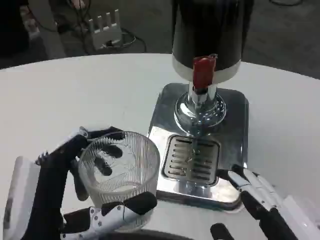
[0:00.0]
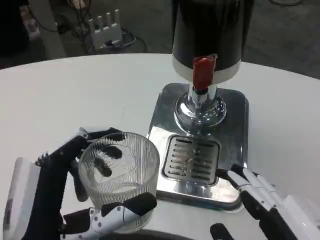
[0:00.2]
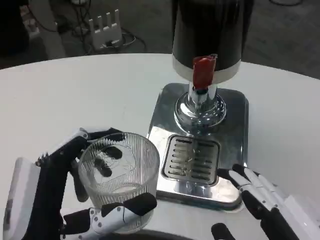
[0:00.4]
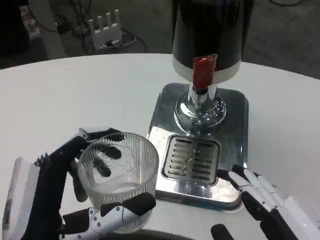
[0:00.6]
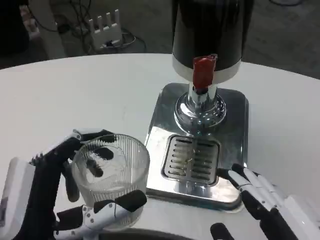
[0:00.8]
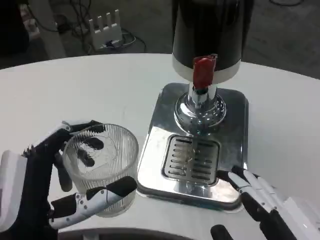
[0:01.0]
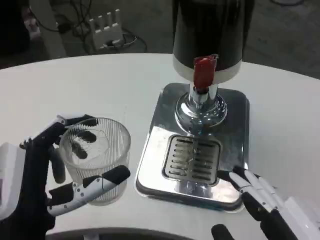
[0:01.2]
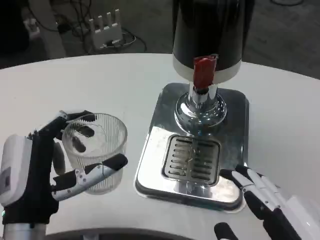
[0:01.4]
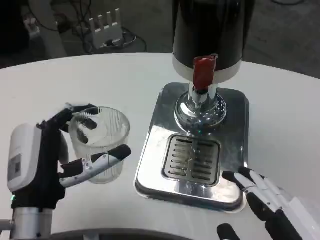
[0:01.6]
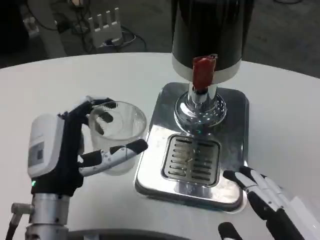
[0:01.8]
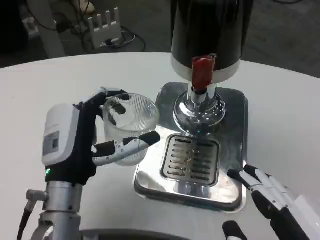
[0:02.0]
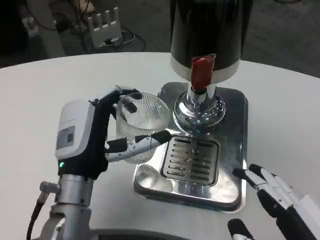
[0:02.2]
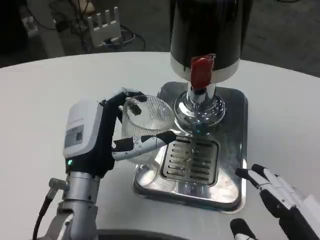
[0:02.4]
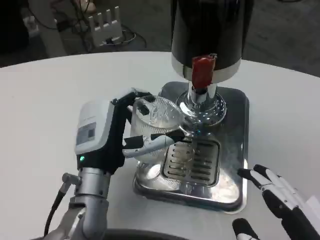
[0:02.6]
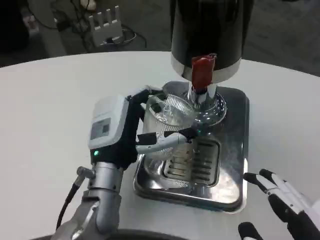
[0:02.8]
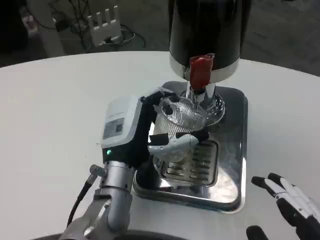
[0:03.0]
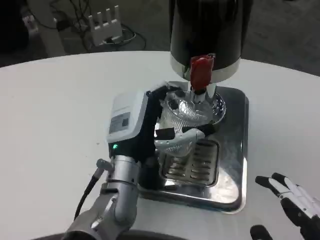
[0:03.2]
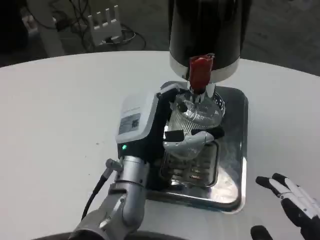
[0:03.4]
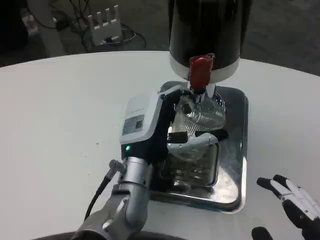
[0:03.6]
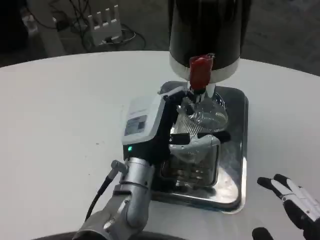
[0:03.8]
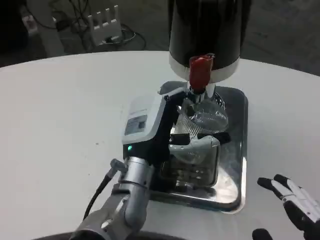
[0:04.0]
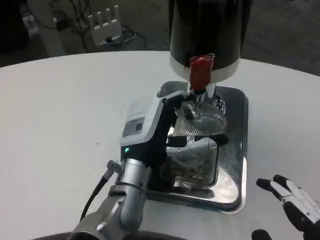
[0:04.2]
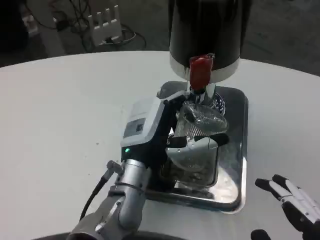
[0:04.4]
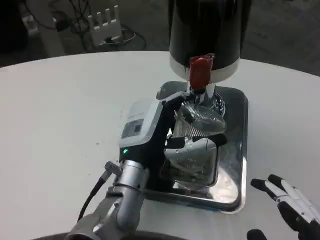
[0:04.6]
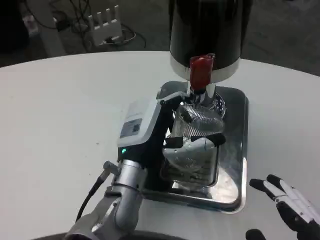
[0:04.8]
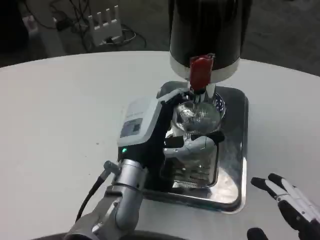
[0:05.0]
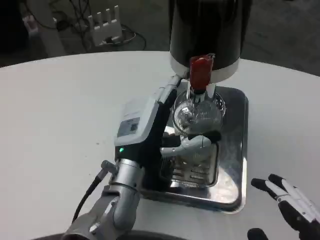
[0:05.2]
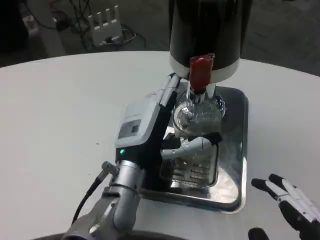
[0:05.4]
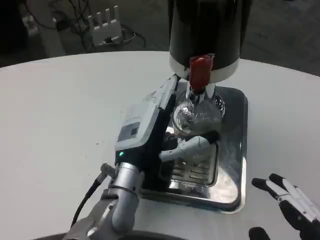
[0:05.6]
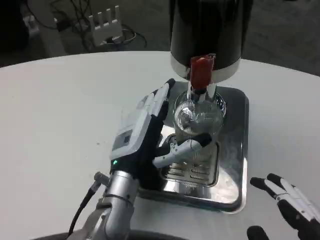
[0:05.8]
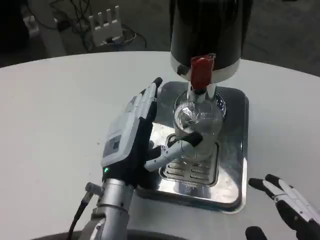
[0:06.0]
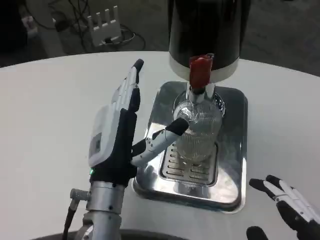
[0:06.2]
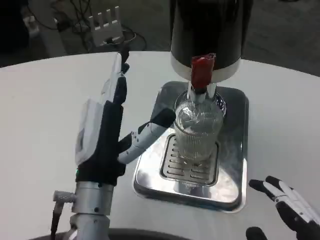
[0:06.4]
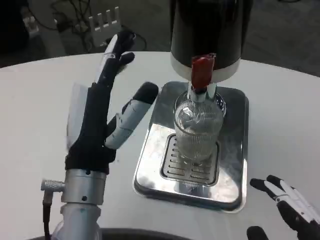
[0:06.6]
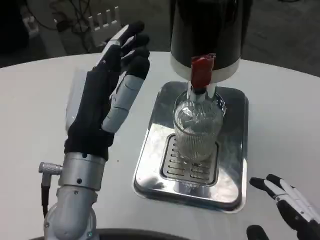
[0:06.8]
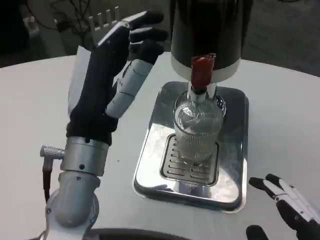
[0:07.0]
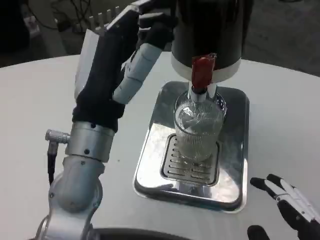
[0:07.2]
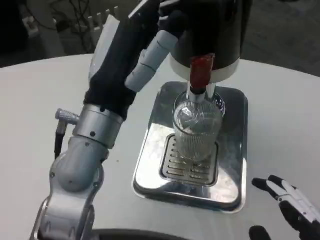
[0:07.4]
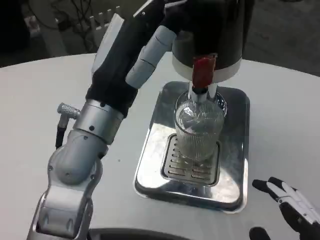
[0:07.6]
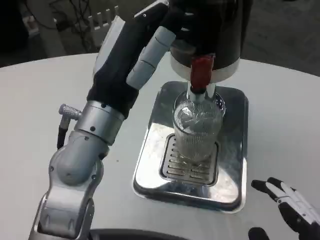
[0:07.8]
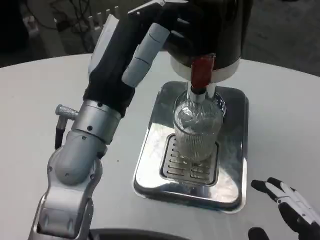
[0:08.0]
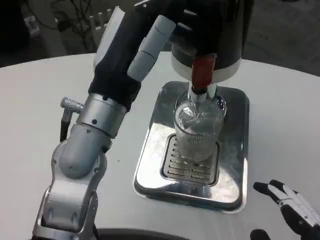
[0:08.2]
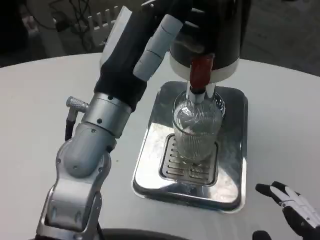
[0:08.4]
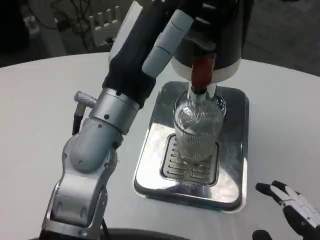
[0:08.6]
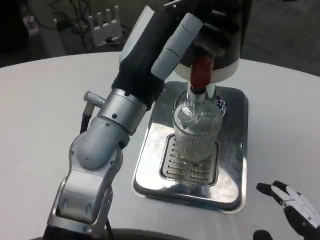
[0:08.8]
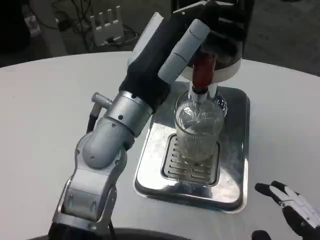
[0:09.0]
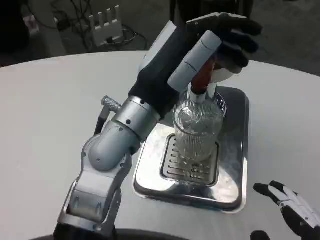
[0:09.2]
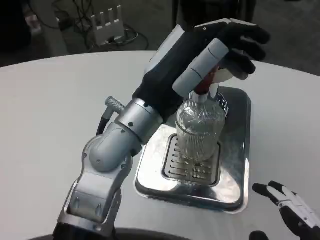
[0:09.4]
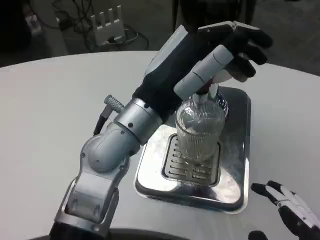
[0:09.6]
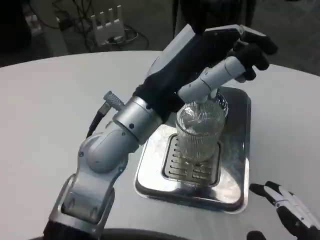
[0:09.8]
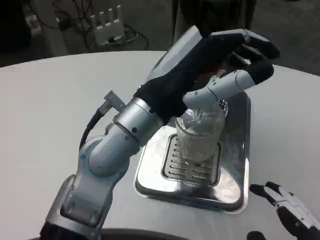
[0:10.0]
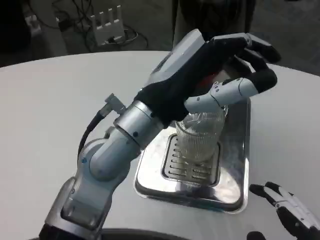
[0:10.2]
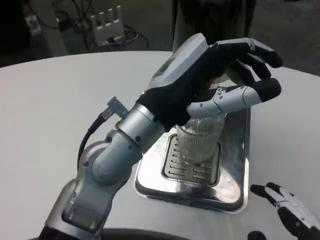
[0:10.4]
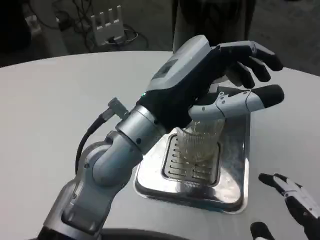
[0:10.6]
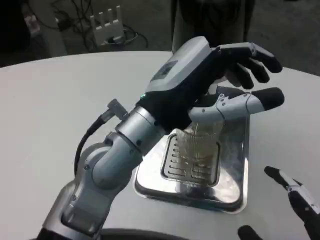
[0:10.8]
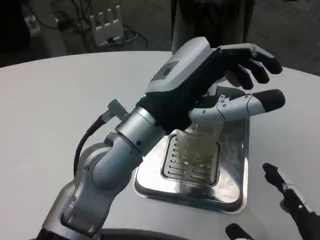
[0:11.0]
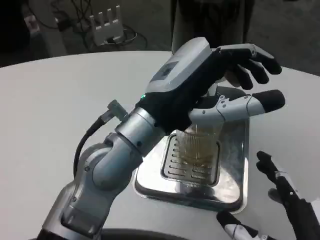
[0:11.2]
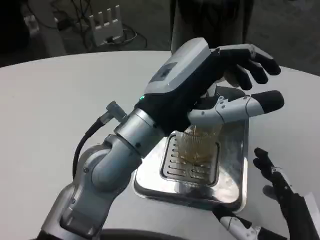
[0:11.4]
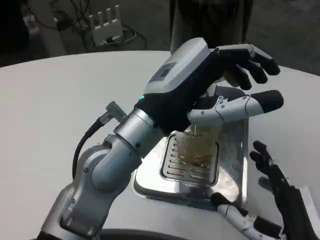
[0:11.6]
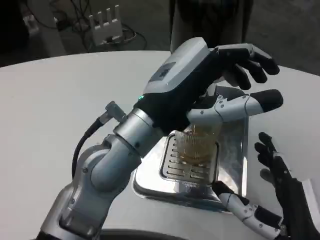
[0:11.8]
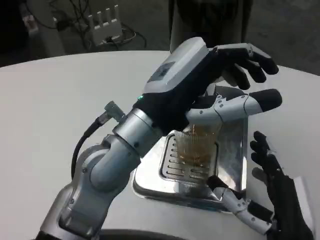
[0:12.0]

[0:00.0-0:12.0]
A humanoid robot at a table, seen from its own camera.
Task of the whole recording: Grasp the cup under the faucet to collect the drink, then remove the cup.
0:00.0 to 0:01.6: The left hand shifts about 10 cm forward.
0:01.6 to 0:03.0: The left hand travels to the right and forward by some 10 cm.
0:03.0 to 0:06.0: The hands stay close to where they were, moving slightly.
0:06.0 to 0:07.6: The left hand heads upward, covering some 15 cm.
0:10.4 to 0:12.0: The right hand moves forward and downward, approximately 15 cm.

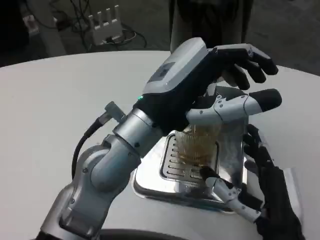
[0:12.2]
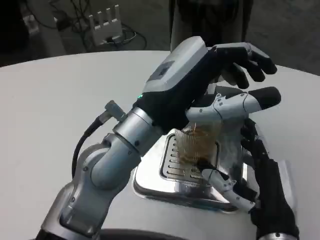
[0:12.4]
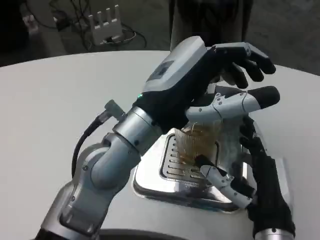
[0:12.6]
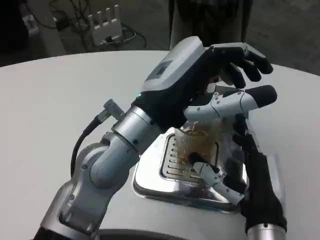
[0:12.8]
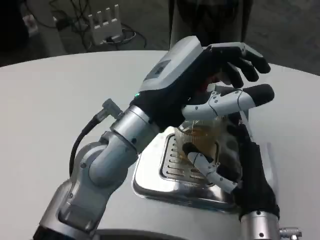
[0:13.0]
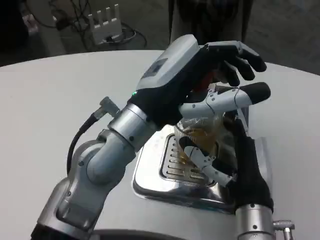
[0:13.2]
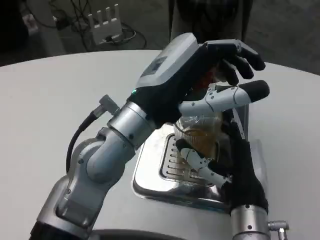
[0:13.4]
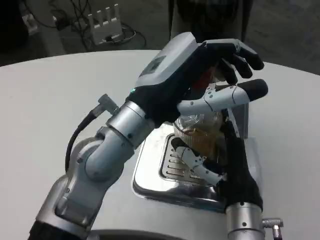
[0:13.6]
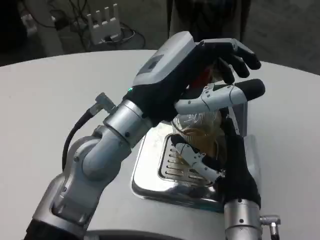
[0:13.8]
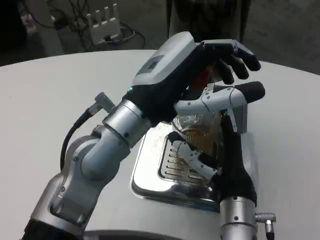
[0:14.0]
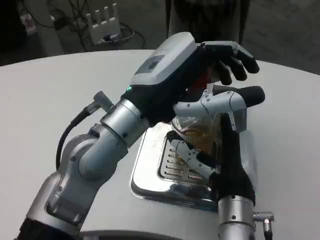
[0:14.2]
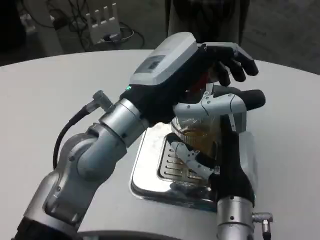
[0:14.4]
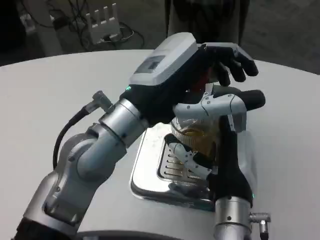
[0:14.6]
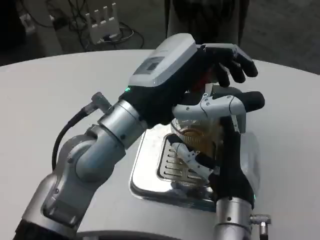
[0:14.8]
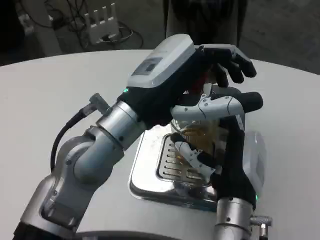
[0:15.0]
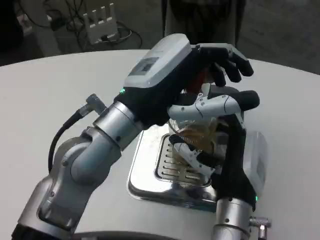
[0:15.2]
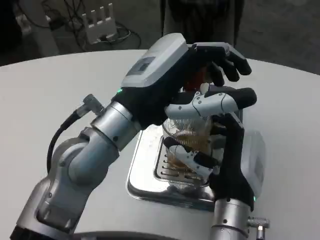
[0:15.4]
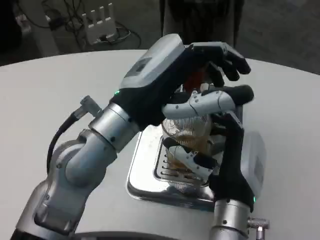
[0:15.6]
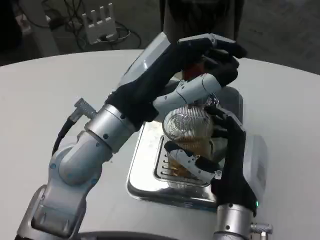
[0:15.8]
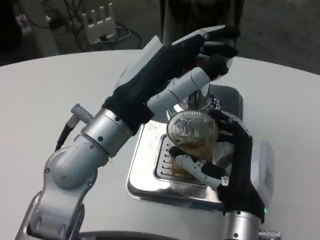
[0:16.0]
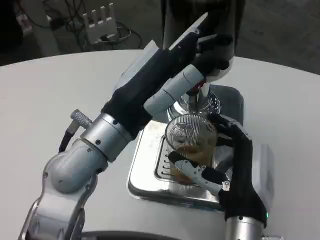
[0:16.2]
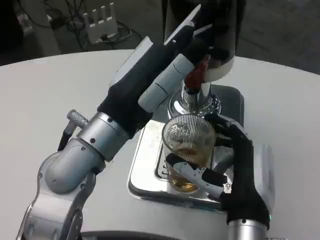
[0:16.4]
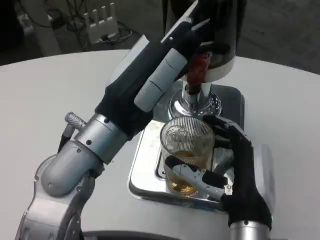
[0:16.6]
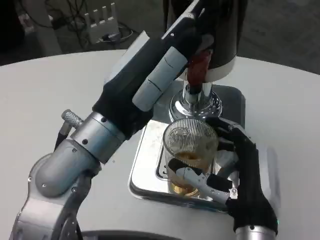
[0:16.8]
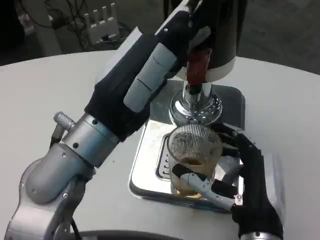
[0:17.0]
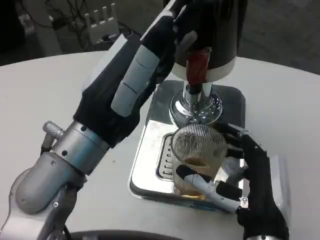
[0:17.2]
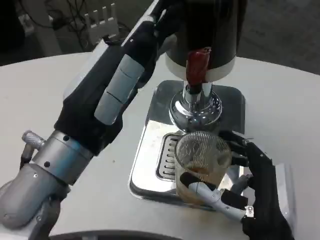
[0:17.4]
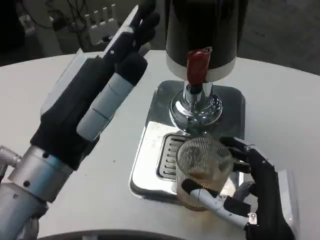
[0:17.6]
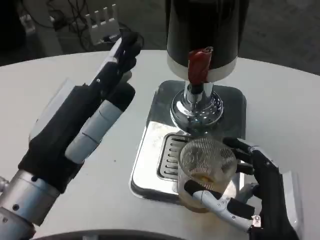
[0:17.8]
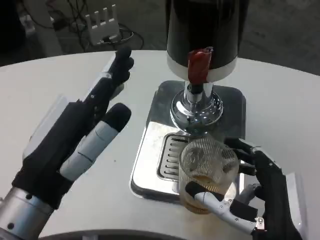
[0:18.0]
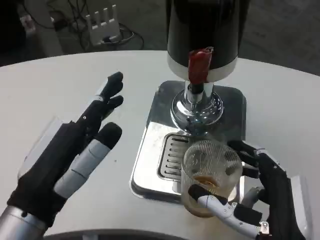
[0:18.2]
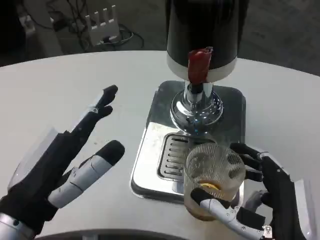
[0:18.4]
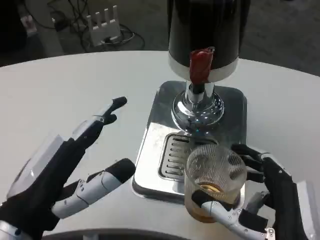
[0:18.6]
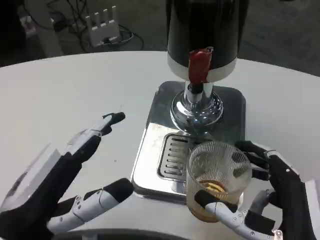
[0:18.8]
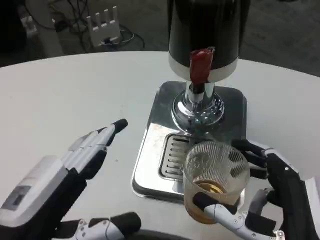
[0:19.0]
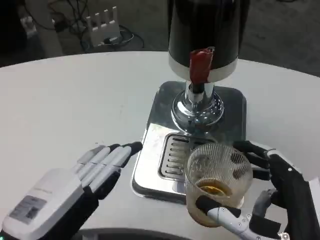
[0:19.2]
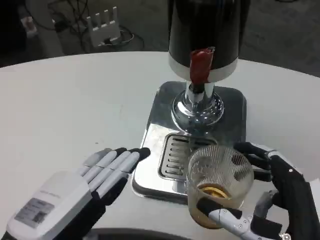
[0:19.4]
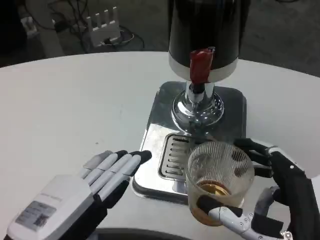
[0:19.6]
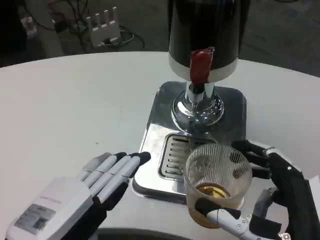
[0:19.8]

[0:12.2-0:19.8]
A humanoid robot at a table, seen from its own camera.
Task of the whole recording: Grasp the cup under the faucet to collect the drink, then remove the cup.
0:12.2 to 0:13.8: The right hand is displaced forward by some 5 cm.
0:15.2 to 0:16.8: The right hand ends up roughly 5 cm from where it was.
0:16.8 to 0:18.2: The left hand shifts approximately 15 cm backward, downward and to the left. The right hand shifts about 5 cm backward.
0:18.2 to 0:19.8: The left hand ends up about 5 cm from where it was.

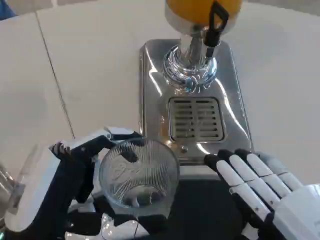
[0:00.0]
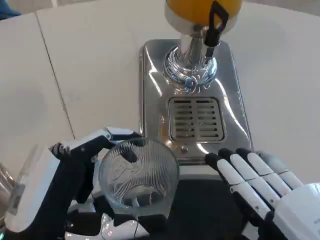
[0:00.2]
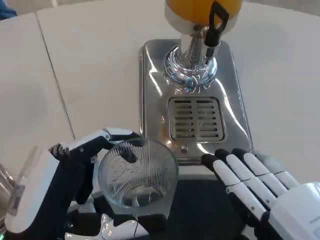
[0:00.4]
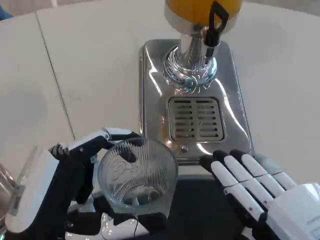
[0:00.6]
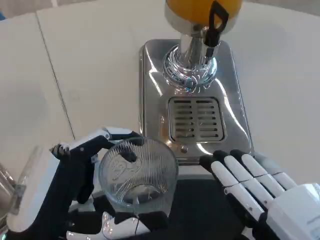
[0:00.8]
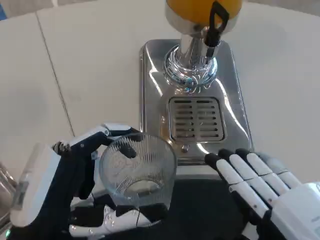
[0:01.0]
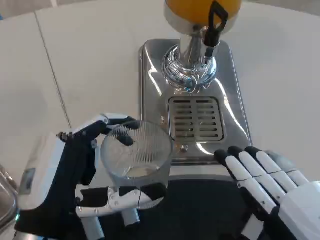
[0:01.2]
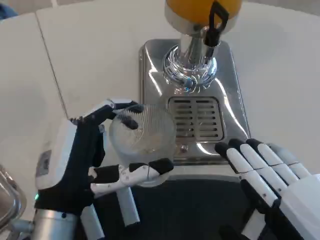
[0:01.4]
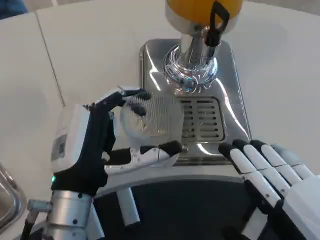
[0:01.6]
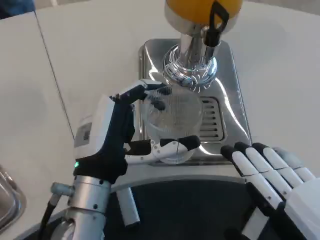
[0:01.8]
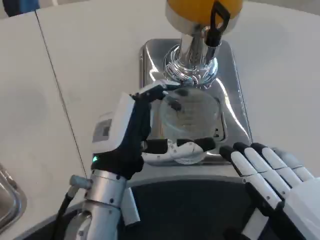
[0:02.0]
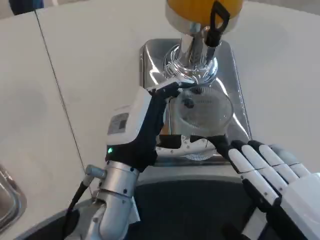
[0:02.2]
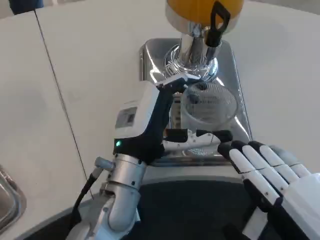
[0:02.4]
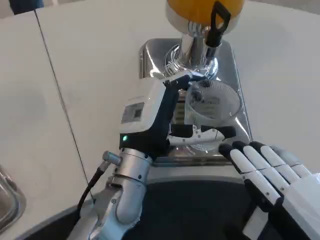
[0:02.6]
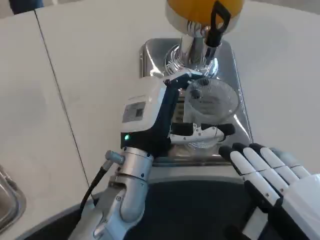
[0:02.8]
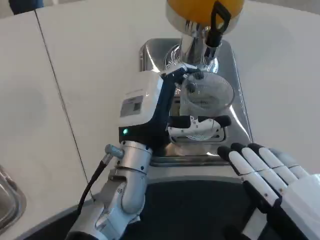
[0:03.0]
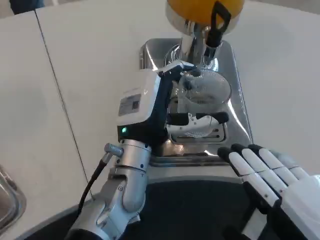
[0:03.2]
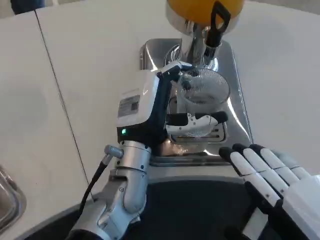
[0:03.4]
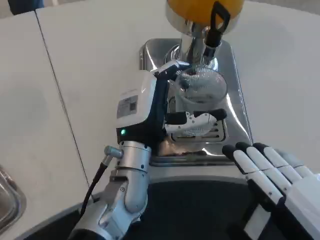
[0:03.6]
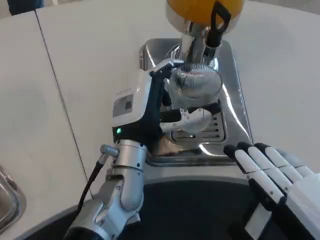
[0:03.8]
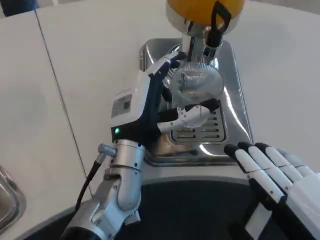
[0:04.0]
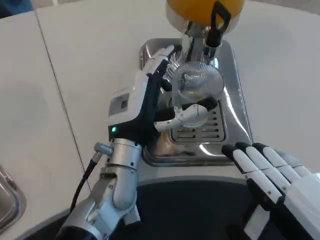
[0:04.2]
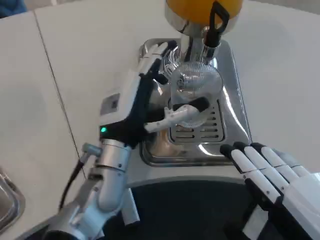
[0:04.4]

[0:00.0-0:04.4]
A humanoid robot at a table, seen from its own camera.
Task of the whole recording: Grasp the cup under the faucet to collect the drink, then remove the cup.
0:00.0 to 0:01.4: The left hand travels forward by some 5 cm.
0:01.4 to 0:03.0: The left hand shifts roughly 15 cm forward and to the right.
